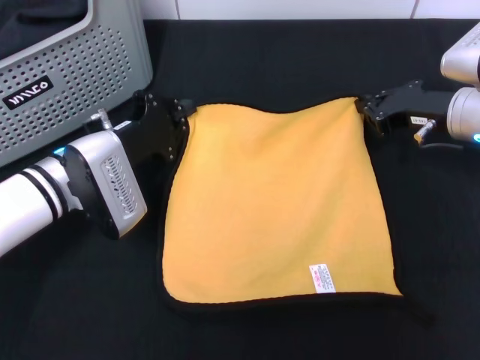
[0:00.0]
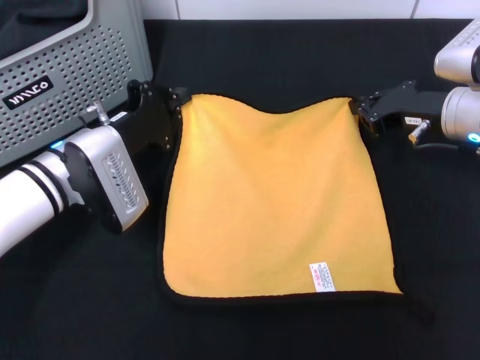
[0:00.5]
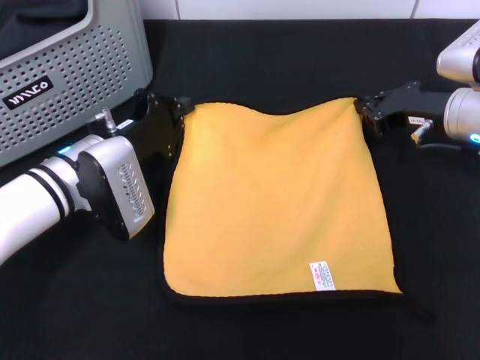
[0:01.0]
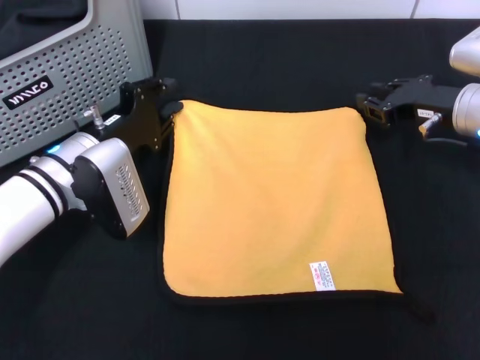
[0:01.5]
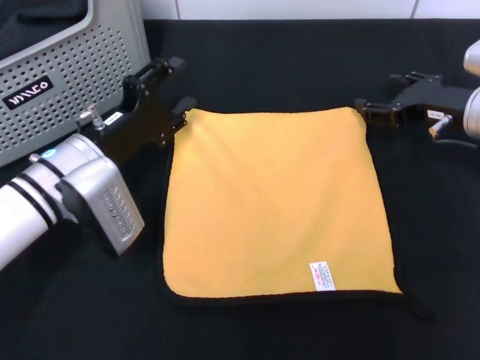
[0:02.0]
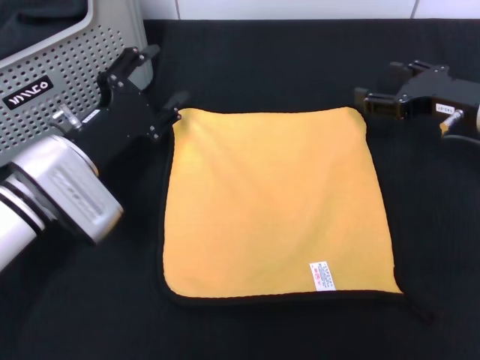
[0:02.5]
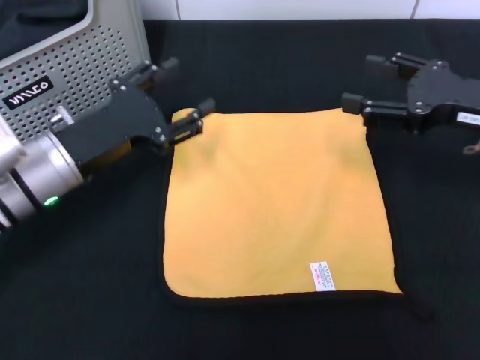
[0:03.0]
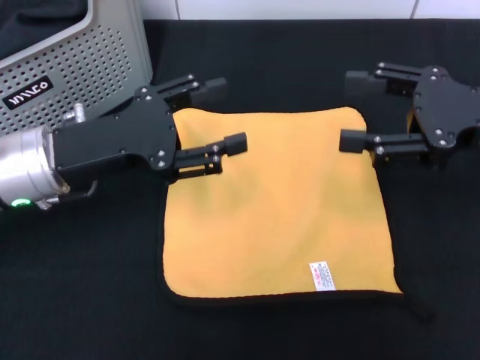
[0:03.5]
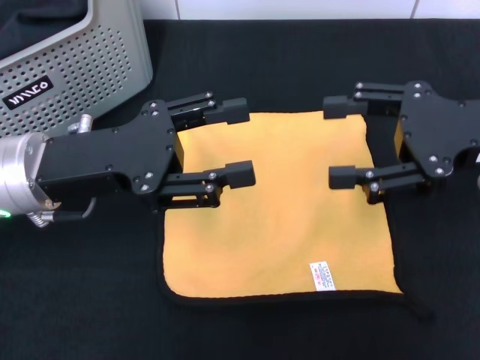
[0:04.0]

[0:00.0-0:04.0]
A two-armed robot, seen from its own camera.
Task of the whole recording: pick up the towel from the storage box and lay it flat on the black tablecloth.
0:00.0 to 0:02.0: The right gripper opens, while the left gripper opens up.
0:02.0 to 0:04.0: The right gripper goes approximately 15 cm upward and backward, and opens its fingers. The left gripper is displaced upward by approximately 10 cm.
